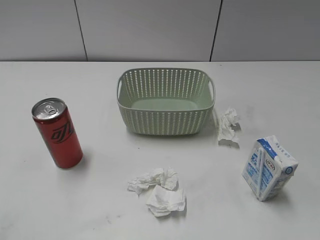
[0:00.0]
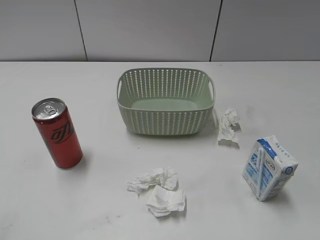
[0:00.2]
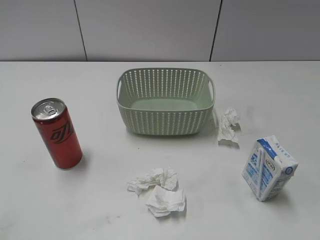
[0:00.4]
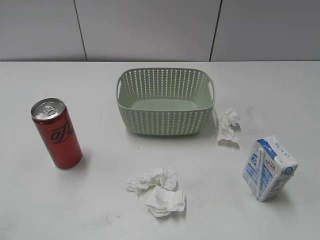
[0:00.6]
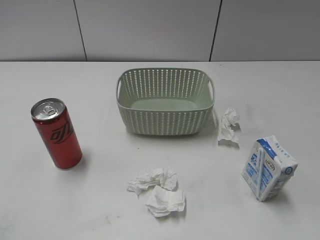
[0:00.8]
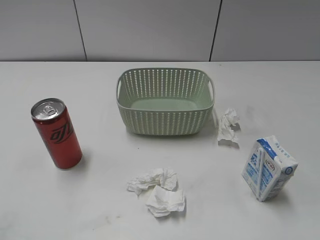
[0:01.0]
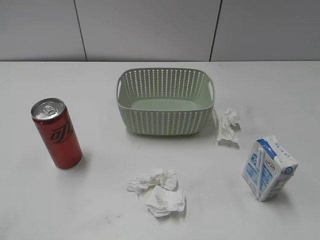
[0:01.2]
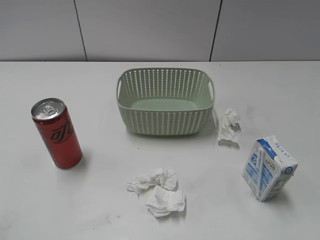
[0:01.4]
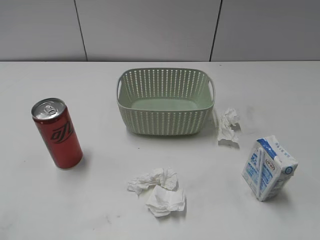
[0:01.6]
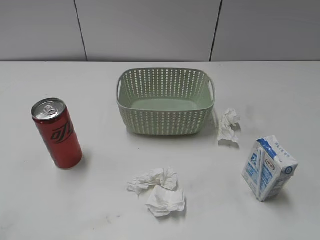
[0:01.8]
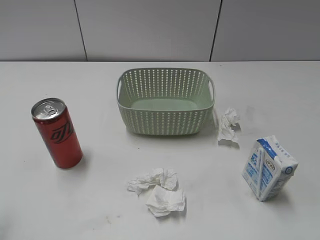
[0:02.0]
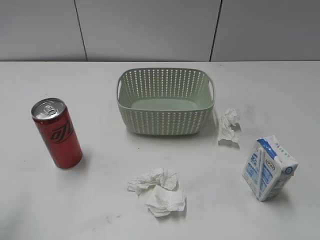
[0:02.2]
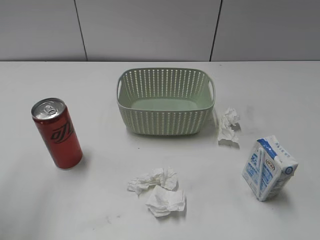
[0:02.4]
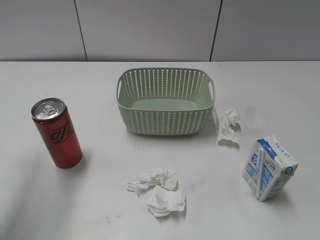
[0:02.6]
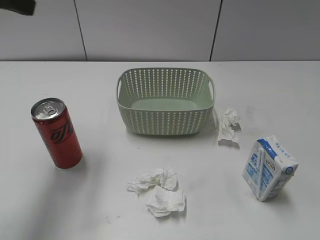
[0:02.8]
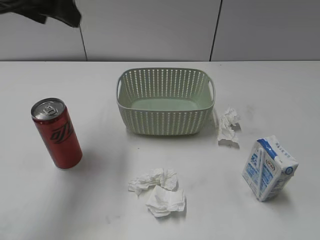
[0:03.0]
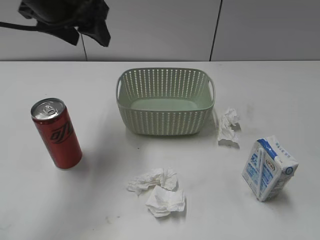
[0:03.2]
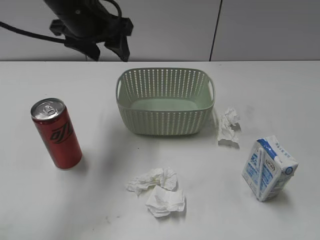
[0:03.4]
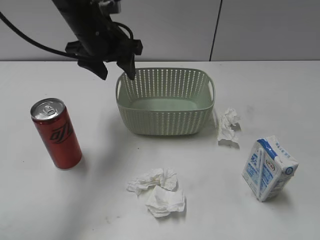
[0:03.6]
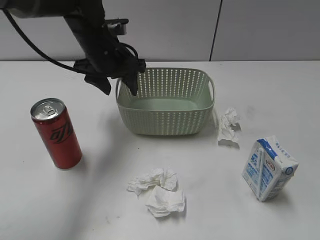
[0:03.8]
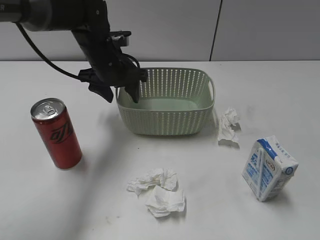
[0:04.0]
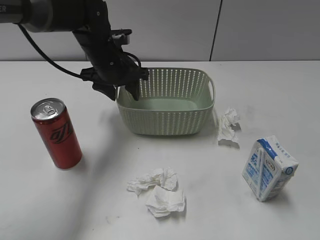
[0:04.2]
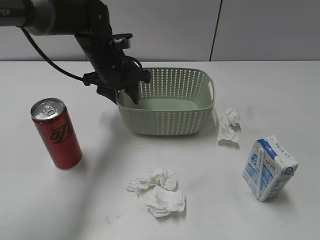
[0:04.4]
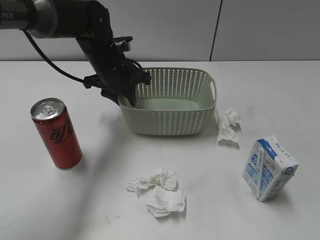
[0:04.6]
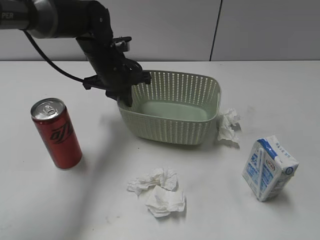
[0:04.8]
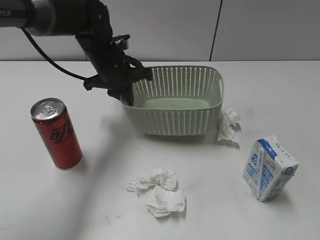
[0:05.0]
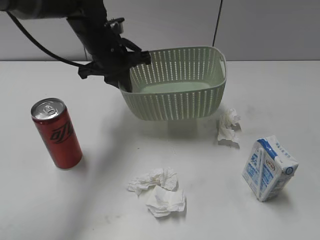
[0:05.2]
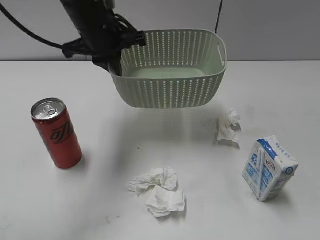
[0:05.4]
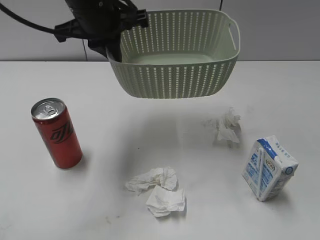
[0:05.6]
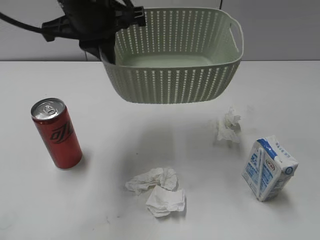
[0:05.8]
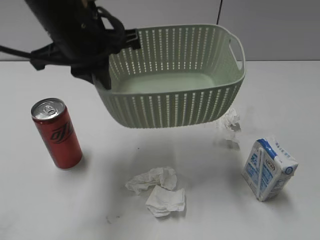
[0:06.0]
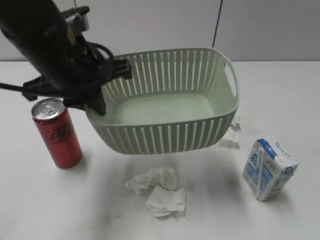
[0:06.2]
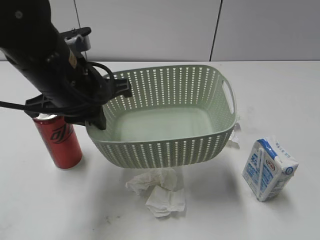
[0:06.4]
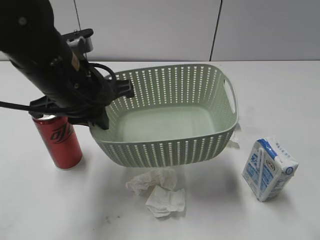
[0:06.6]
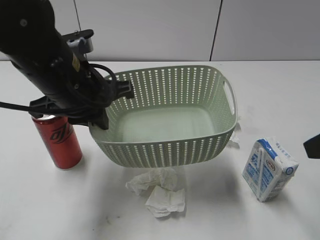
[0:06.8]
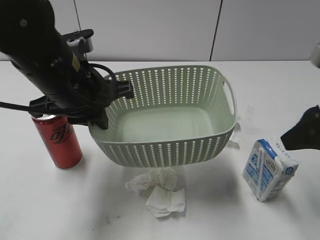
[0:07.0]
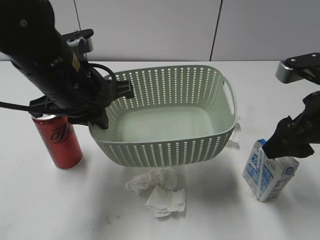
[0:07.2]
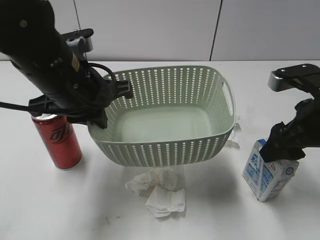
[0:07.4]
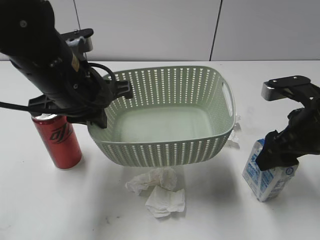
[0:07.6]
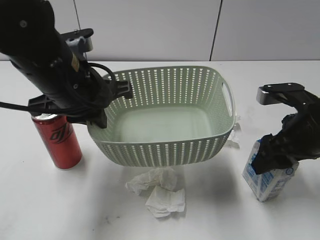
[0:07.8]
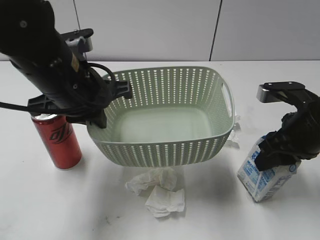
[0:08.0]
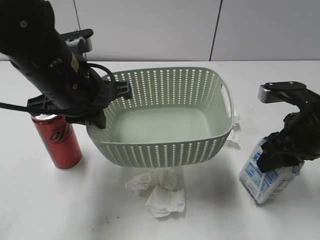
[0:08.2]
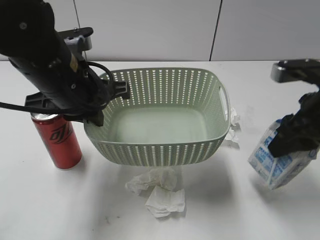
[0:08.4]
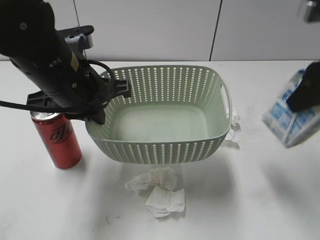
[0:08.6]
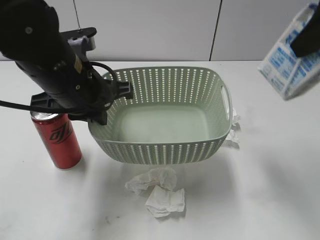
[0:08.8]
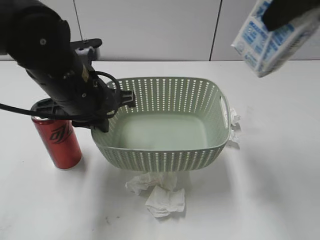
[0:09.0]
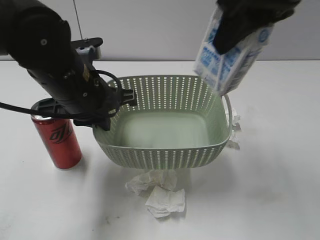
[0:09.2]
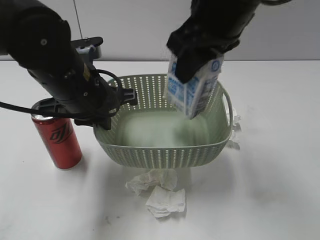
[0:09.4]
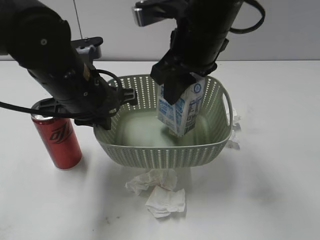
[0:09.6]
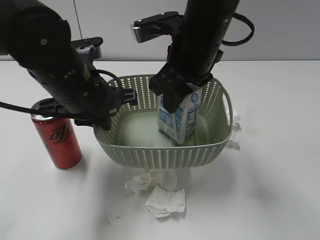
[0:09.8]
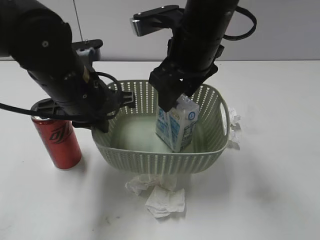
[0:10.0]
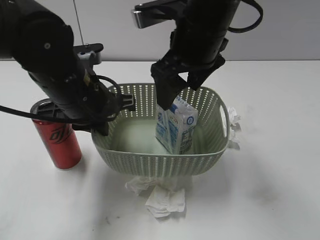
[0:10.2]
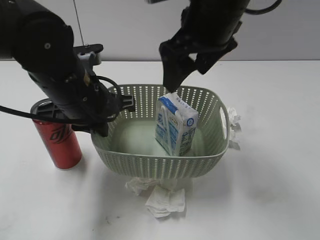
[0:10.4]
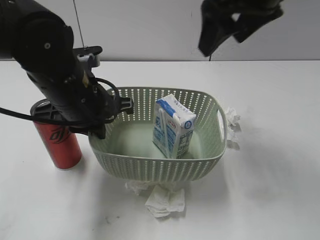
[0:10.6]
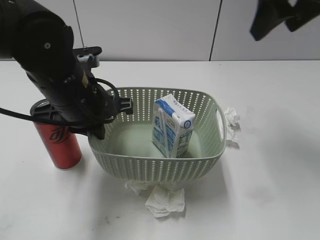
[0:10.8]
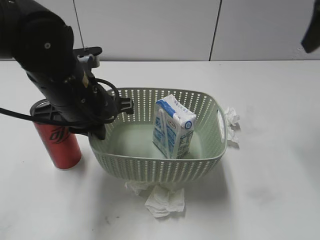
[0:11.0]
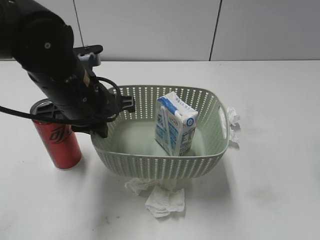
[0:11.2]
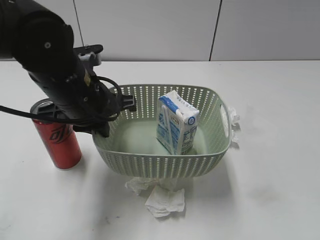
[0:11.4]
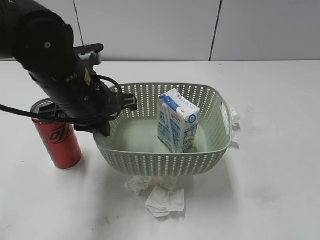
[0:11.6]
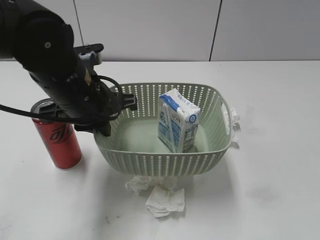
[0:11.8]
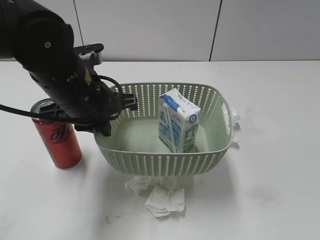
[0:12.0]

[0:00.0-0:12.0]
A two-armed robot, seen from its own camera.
Step, 0:02.8 to 0:04.8: Grasp the basket with left gripper.
Step, 0:05.0 to 0:06.6: Lift the basket with left gripper.
Step, 0:06.8 to 0:08.0: Grasp the milk with right gripper.
Step, 0:08.2 to 0:10.4: Place the milk in the basket with right gripper.
0:01.6 to 0:03.0: The left gripper travels forward and to the right by some 35 cm.
0:03.0 to 0:04.4: The left gripper travels downward, forward and to the right by approximately 25 cm.
0:04.4 to 0:06.0: The left gripper shifts some 20 cm backward and upward, and closes.
0:06.0 to 0:07.6: The left gripper goes approximately 5 cm downward, while the right gripper shifts about 25 cm forward and downward.
0:07.6 to 0:09.0: The right gripper heads upward, covering approximately 20 cm, and closes.
0:09.0 to 0:10.4: The right gripper heads to the left and downward, covering about 15 cm, and opens up.
0:10.4 to 0:12.0: The right gripper goes roughly 35 cm backward and to the right.

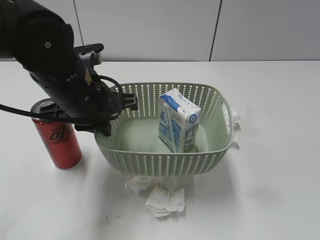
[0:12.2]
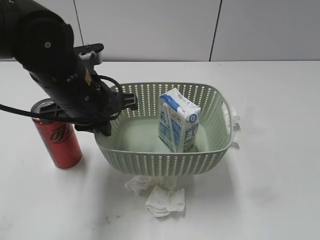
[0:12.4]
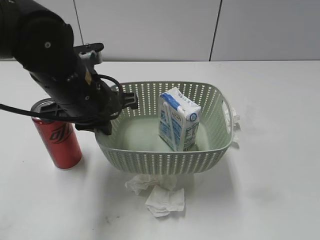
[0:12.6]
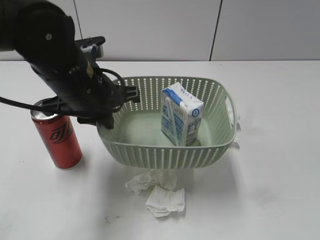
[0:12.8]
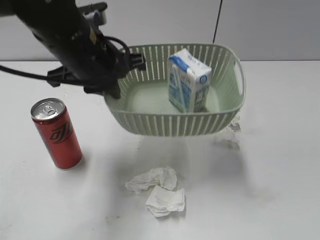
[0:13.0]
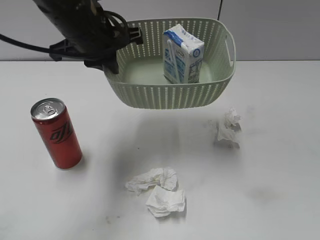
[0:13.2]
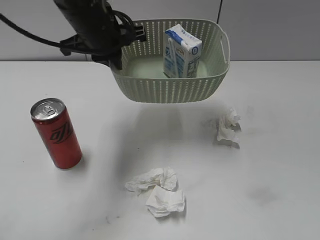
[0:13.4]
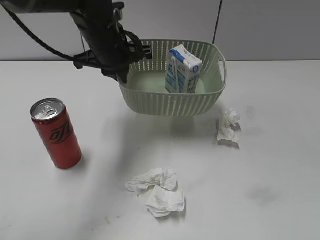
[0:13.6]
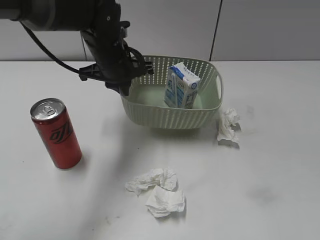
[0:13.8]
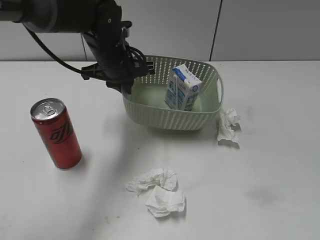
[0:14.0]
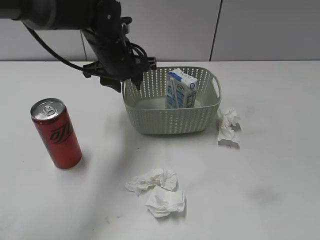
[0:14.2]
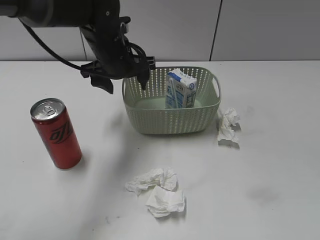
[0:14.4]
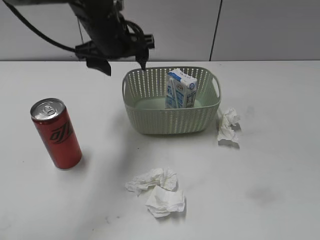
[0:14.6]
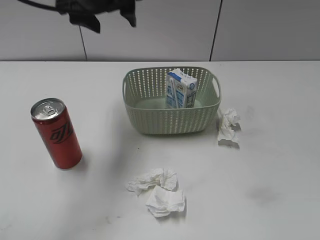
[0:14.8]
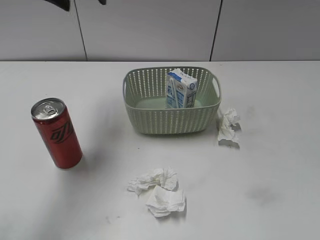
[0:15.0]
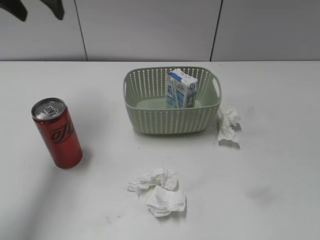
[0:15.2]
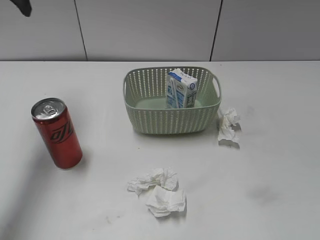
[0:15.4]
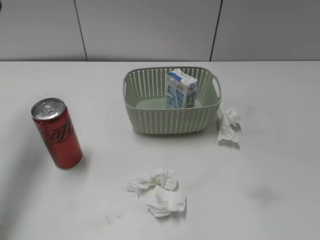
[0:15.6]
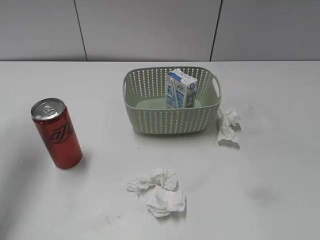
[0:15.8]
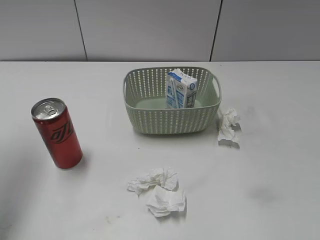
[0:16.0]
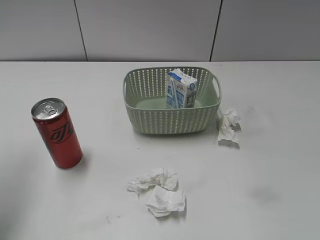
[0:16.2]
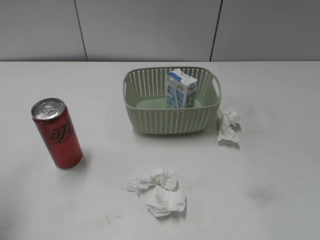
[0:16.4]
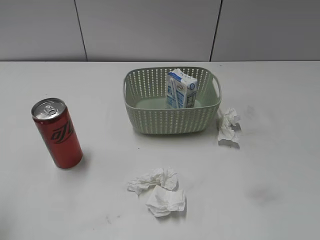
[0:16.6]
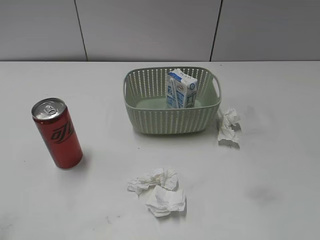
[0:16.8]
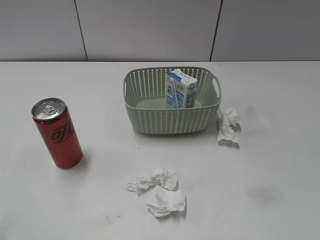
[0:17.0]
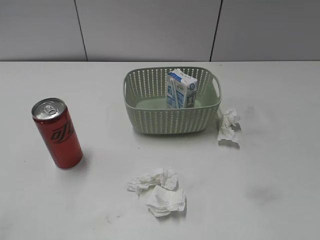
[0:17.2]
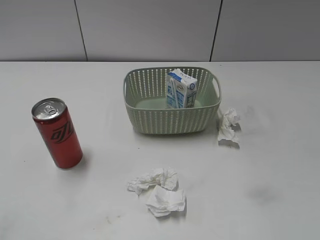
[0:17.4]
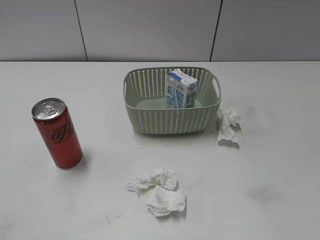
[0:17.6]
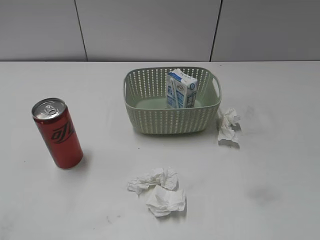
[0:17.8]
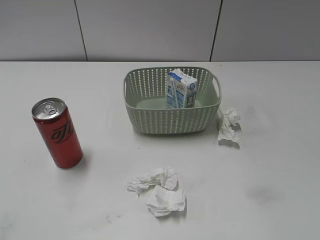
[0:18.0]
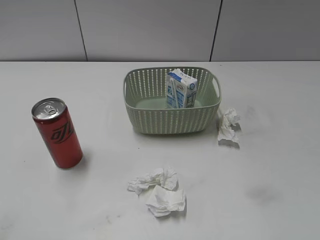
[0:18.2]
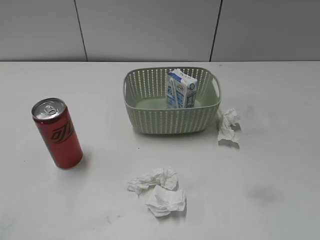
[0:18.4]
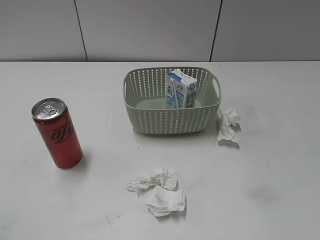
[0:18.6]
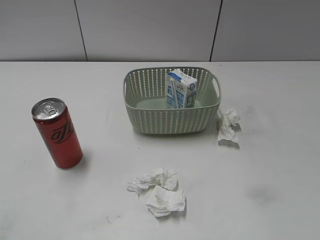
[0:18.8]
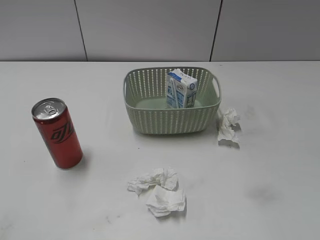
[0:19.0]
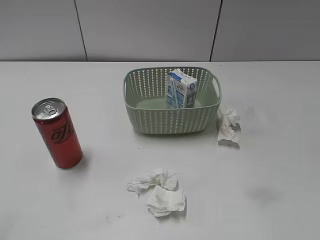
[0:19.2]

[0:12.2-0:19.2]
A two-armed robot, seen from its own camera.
Step, 0:12.2 to 0:14.4: Place the basket on the table with left gripper.
0:12.2 to 0:13.6: The left gripper heads forward, covering about 15 cm.
0:13.6 to 0:15.0: The left gripper goes approximately 15 cm upward and to the left, and opens its fingers.
0:15.0 to 0:16.4: The left gripper is displaced backward and to the left by about 25 cm.
0:16.4 to 0:17.8: The left gripper shifts approximately 20 cm backward.
0:17.8 to 0:19.2: Both grippers stay about where they are.

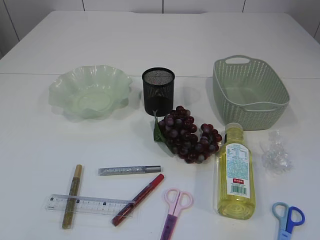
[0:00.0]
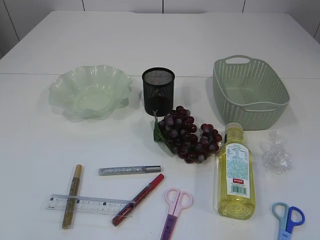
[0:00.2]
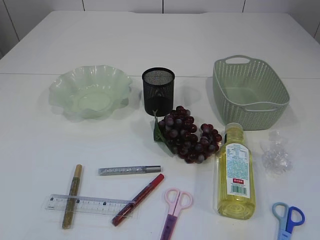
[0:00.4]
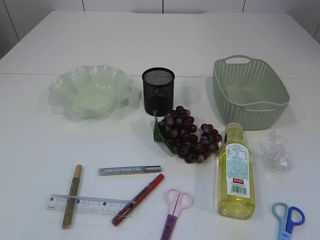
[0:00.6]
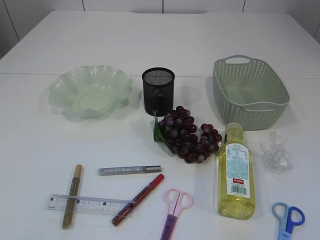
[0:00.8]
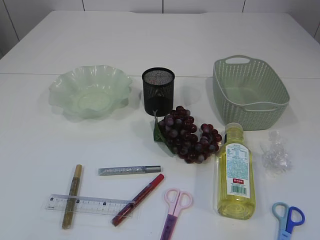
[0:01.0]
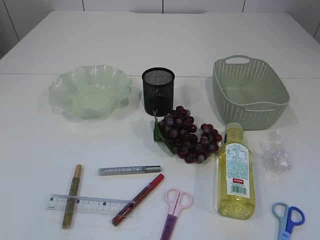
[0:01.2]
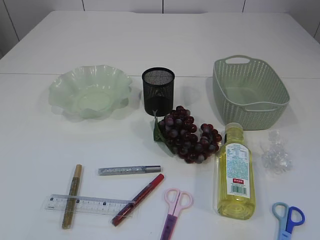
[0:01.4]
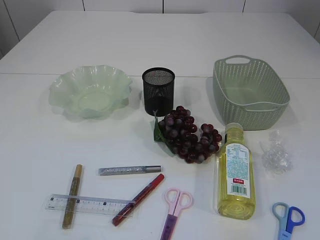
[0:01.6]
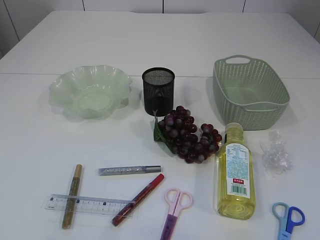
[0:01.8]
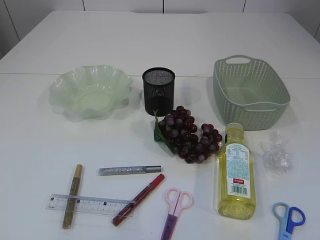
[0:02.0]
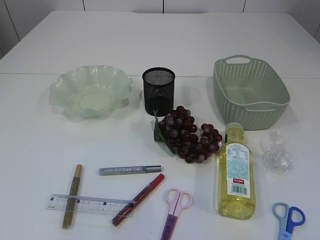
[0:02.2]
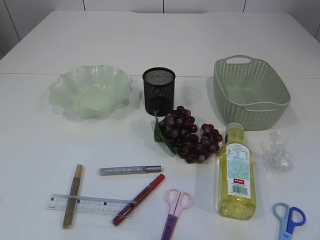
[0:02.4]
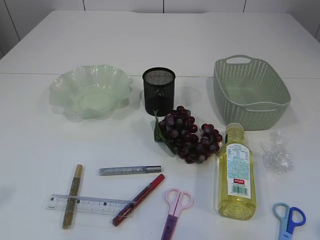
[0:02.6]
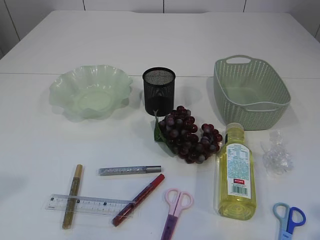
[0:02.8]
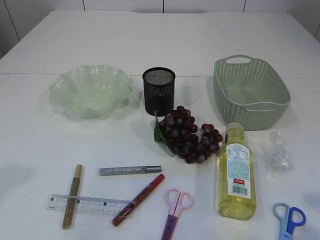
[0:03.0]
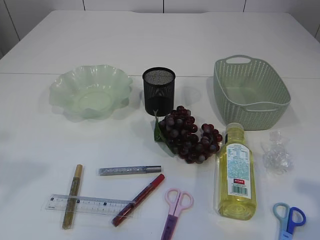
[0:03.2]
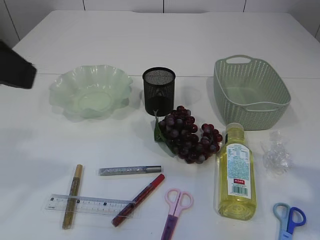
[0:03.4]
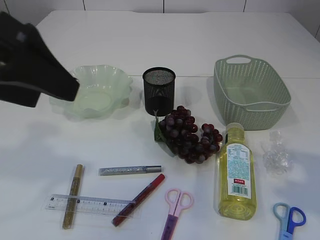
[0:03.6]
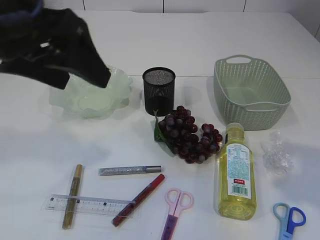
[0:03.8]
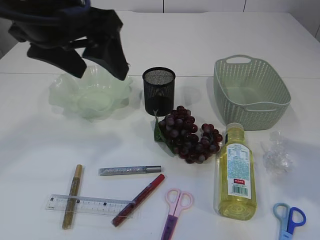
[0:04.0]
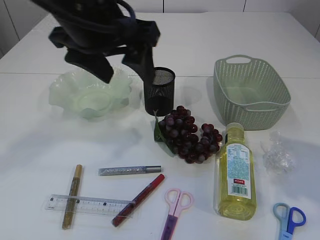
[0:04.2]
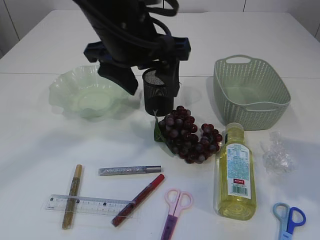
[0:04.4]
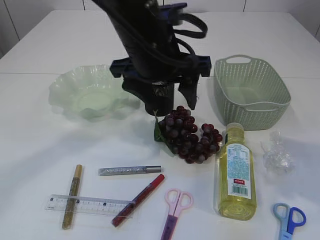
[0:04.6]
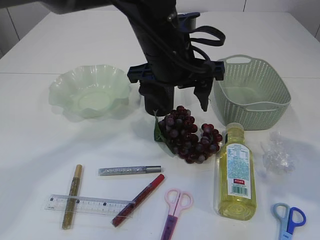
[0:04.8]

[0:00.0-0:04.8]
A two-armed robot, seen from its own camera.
0:01.6 to 0:03.2: The left gripper moves forward and upward, approximately 20 cm. The right gripper travels forward by some 10 cm.
0:03.2 to 0:04.8: The left gripper is displaced to the right, forward and downward by some 30 cm, while the right gripper is displaced forward by approximately 10 cm.
